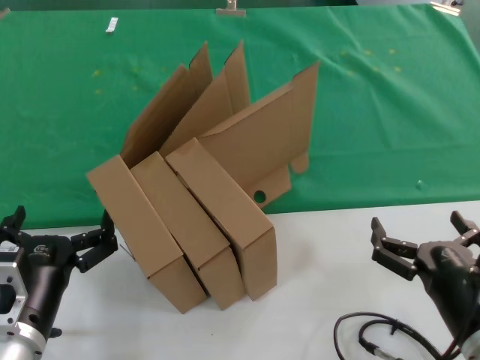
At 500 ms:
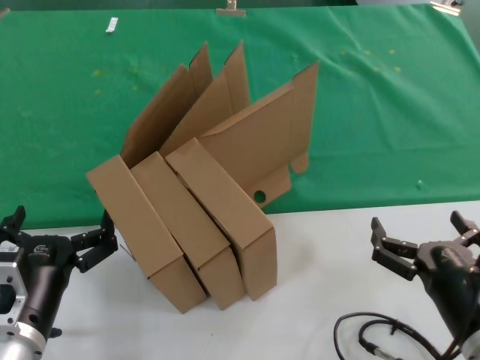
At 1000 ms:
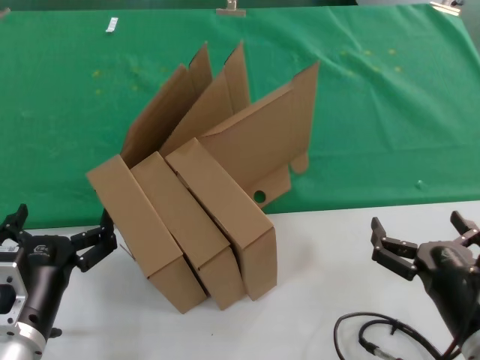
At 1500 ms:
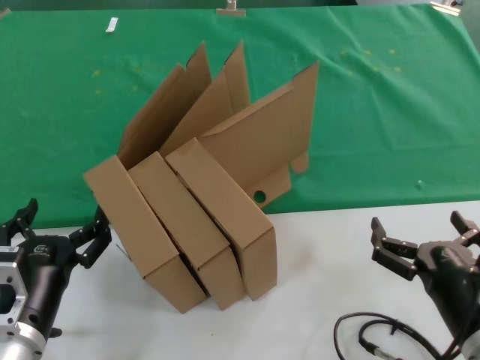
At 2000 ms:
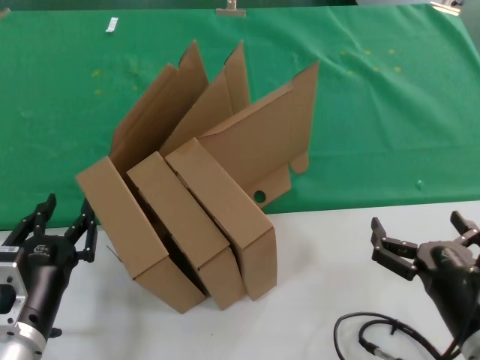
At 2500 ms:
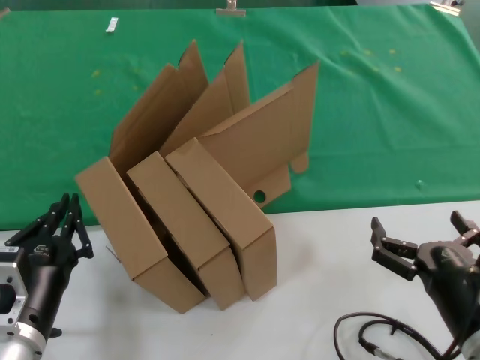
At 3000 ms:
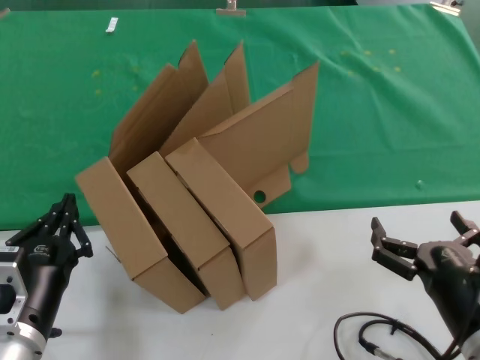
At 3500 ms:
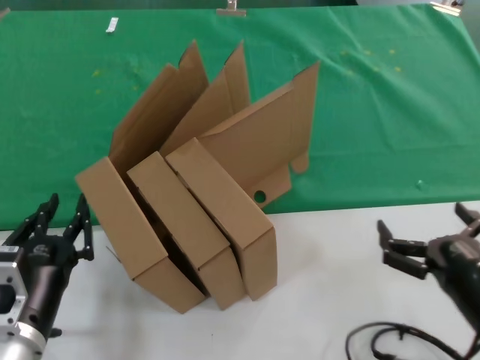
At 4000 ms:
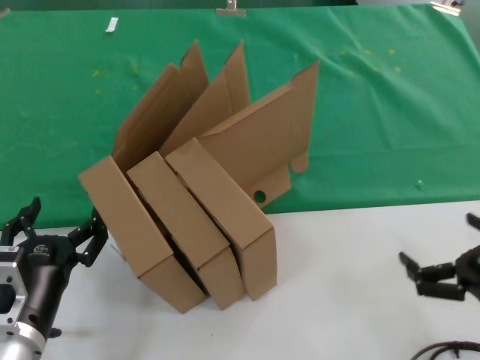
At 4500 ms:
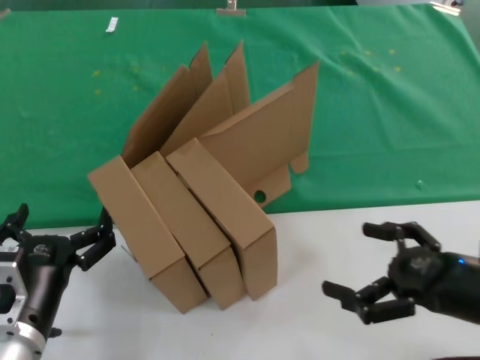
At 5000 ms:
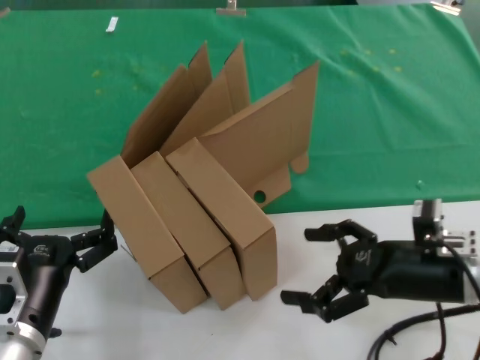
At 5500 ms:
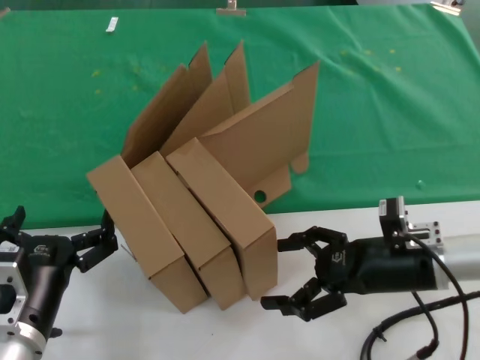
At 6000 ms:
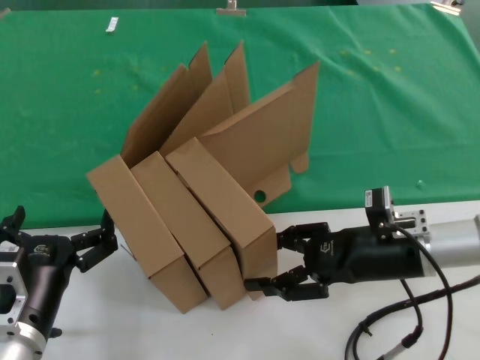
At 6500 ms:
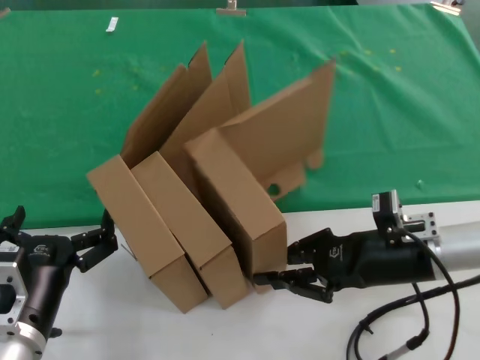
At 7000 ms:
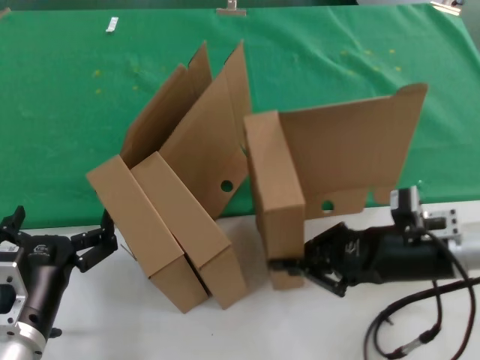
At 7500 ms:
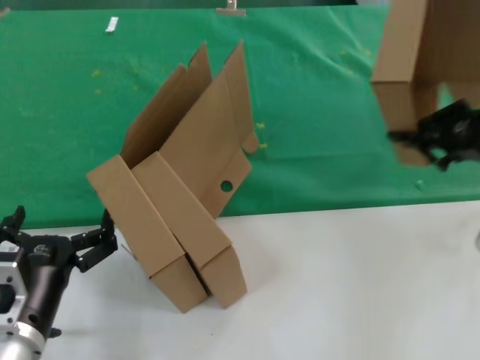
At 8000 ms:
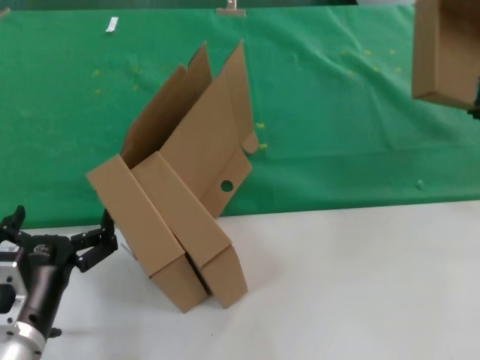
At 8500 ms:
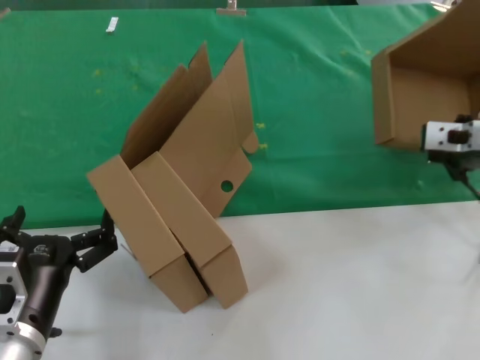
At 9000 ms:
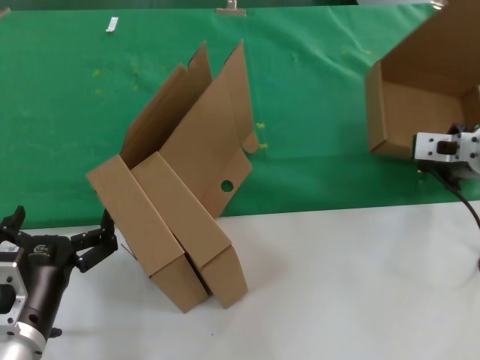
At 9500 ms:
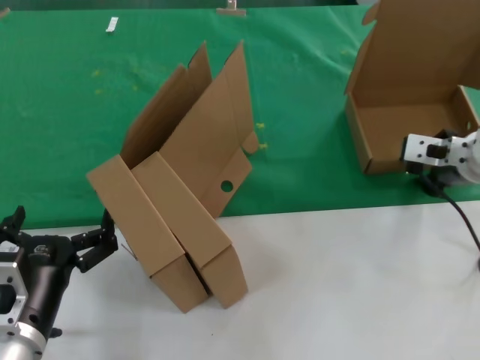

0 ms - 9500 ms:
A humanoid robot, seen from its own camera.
Task of the whole recording: pick up the paper box and put it at the back.
Step, 0 ms - 6000 ms: Grasp the paper box.
0 ms - 2000 ms: Both hands stay put.
2000 ms - 4000 ms: The right hand moves to the right, about 10 cm.
4000 ms - 5500 ms: The right hand heads forward and to the left, covering about 15 cm.
5500 ms - 7500 ms: The right hand is displaced upward and to the right by some 20 cm.
7500 ms - 9500 ms: The right hand travels forward, to the left and downward by about 15 cm.

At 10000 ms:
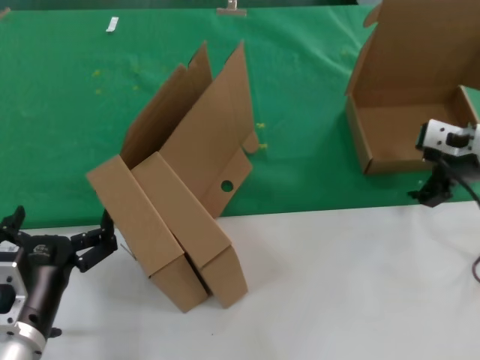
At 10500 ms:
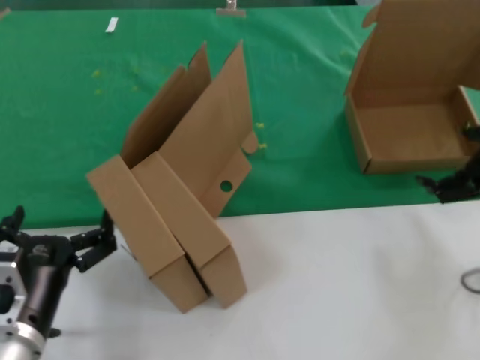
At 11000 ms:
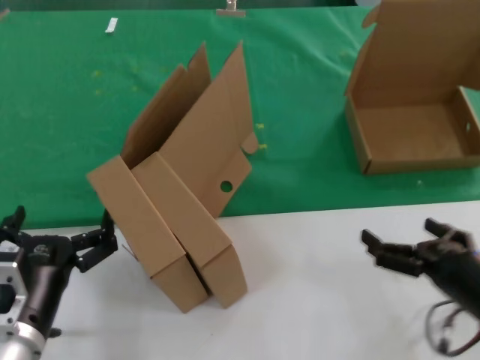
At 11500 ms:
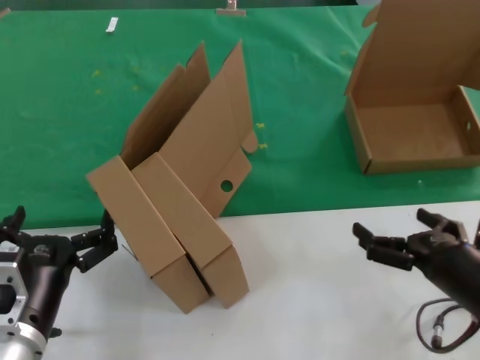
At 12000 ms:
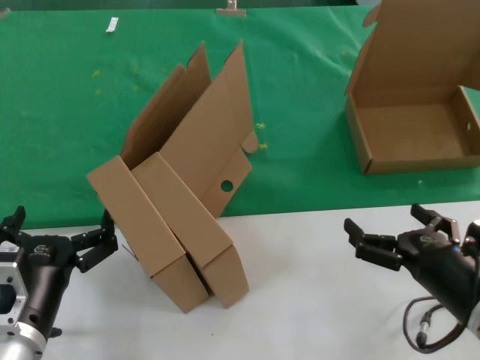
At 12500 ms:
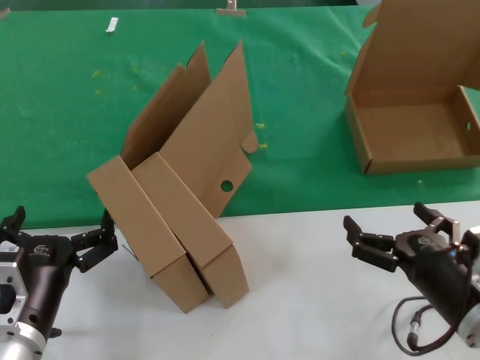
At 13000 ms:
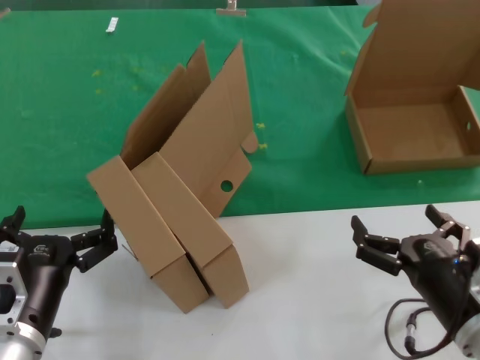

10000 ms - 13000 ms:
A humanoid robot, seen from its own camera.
Task of the whole recording: pick up the paper box and put it at the back.
10000 ms - 11500 ms: The right hand goes about 25 cm backward and downward.
11500 ms - 13000 ms: The right hand shifts by roughly 5 cm.
